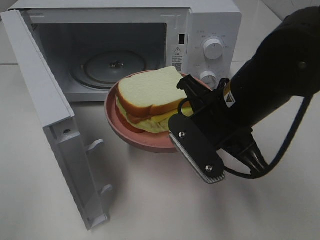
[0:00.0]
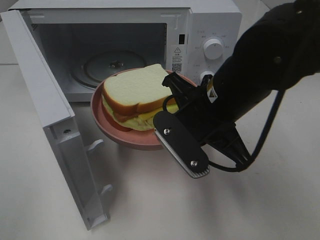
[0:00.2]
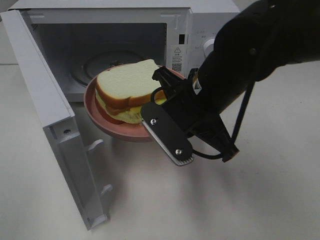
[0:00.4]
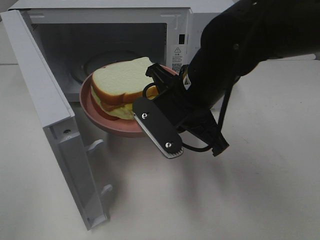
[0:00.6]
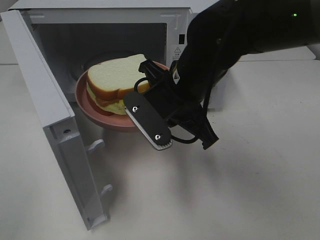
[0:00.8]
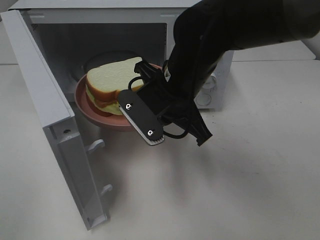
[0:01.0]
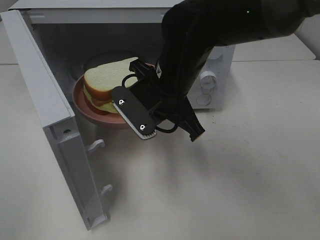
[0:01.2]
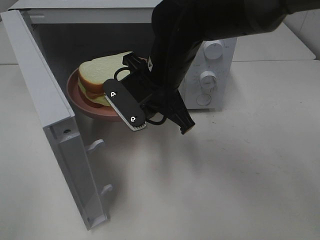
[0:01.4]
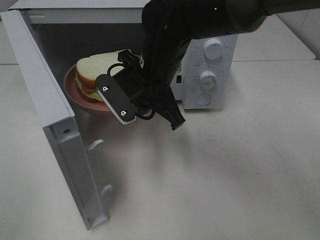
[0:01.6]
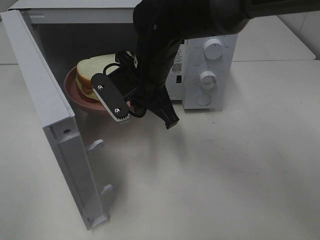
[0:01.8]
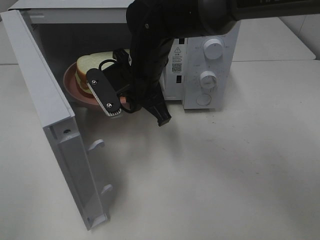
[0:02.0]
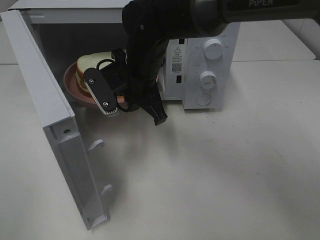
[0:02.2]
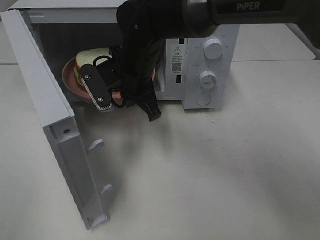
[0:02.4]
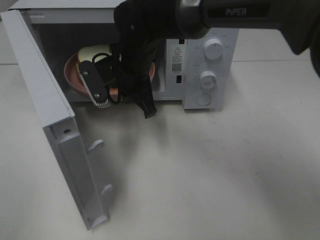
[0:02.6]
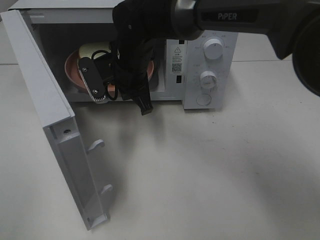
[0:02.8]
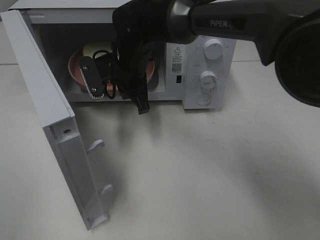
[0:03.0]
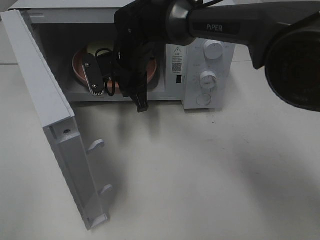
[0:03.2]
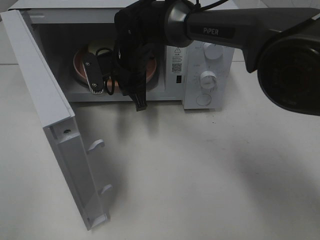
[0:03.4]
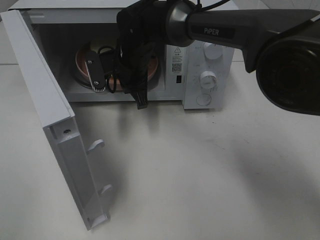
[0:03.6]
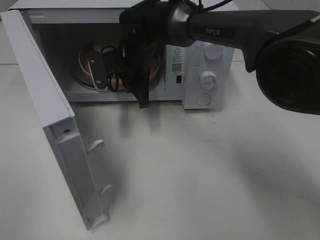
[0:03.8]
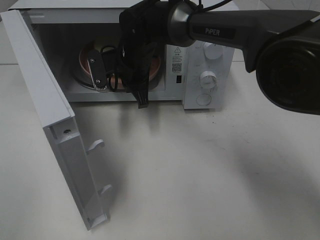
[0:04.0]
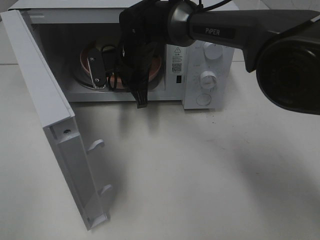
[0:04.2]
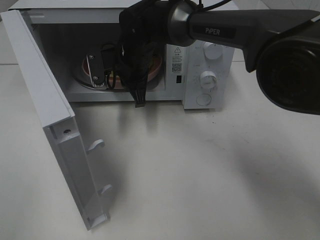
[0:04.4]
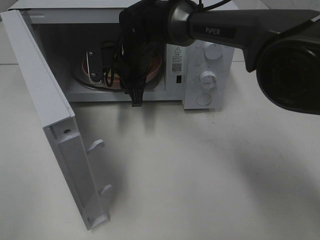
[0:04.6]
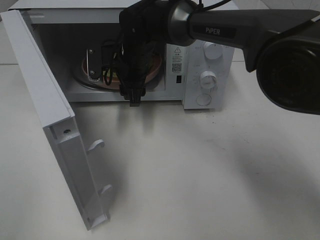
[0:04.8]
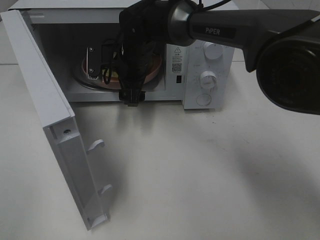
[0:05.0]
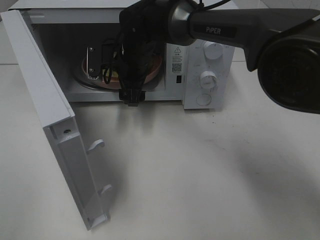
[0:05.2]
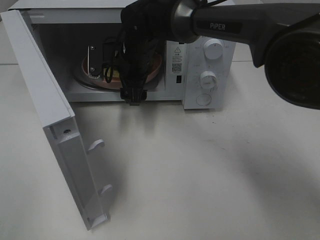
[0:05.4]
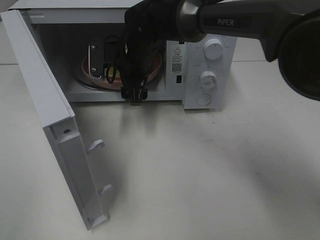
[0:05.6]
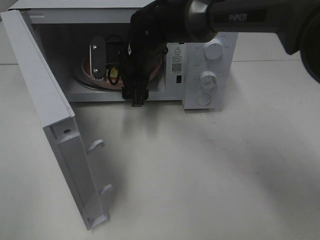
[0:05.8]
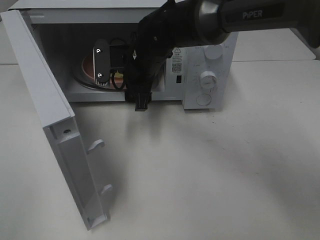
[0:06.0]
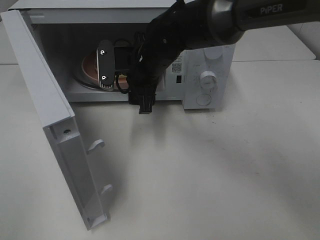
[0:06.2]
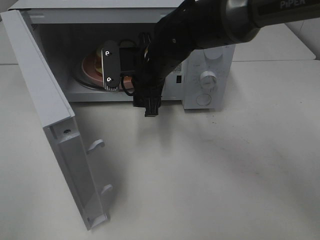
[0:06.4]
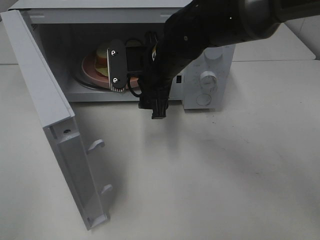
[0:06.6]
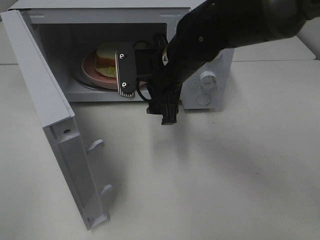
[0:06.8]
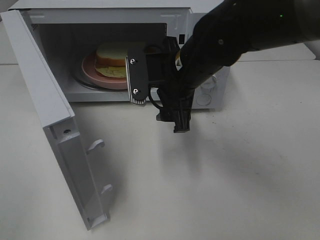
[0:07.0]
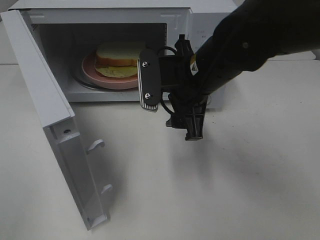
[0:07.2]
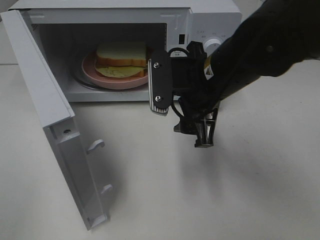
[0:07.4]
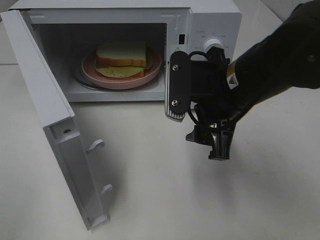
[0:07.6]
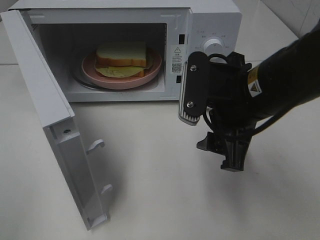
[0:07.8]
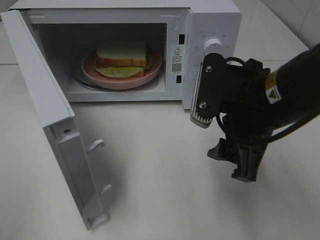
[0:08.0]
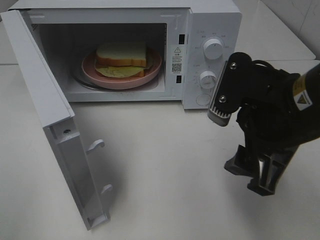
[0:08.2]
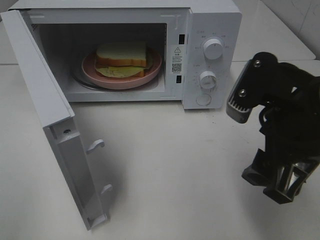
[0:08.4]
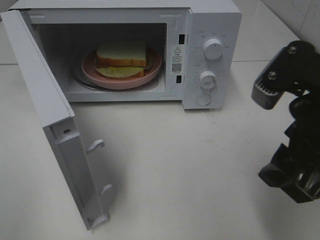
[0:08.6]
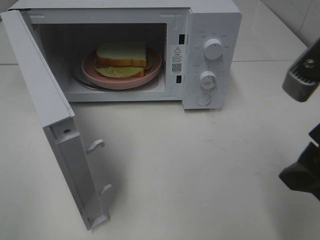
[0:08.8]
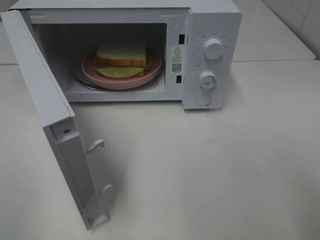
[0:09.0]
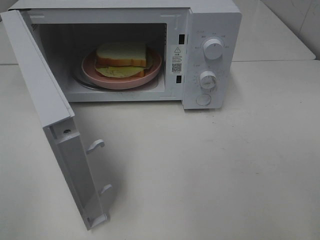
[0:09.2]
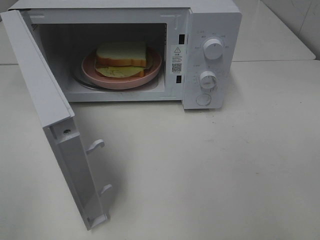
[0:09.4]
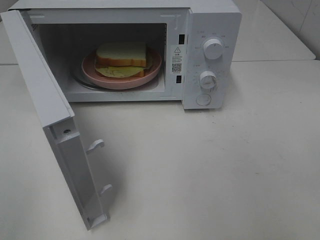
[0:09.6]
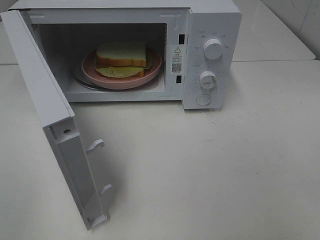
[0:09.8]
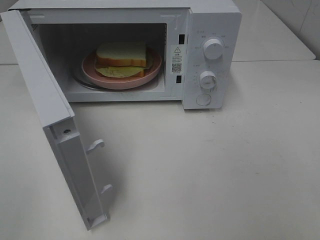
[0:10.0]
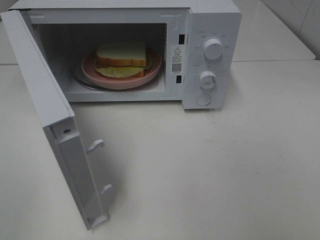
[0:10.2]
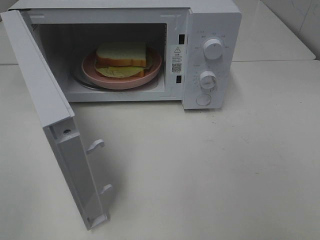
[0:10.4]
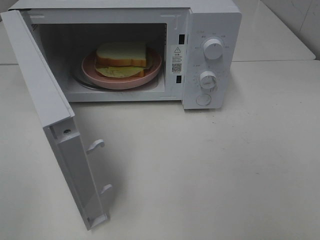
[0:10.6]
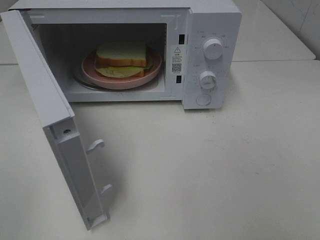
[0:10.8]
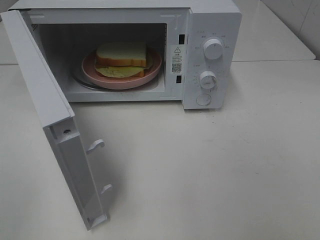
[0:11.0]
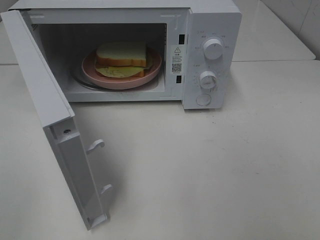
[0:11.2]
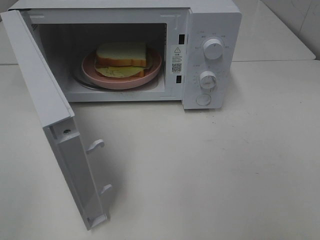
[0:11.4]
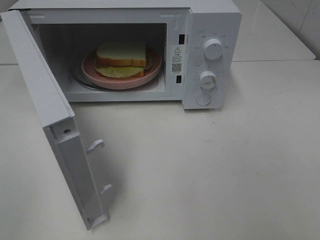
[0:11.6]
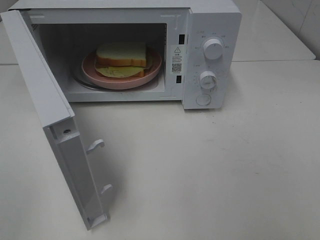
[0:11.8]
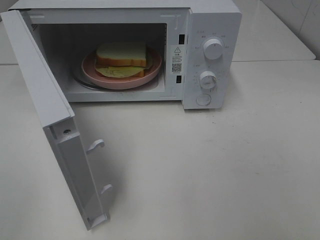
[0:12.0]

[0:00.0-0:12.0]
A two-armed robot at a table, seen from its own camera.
Task of the whole recording: Heat Sandwich.
Step, 0:00.0 to 0:05.8: Right hand: place the plate in the microwave.
0:00.0 to 0:01.6: The right gripper shifts about 15 cm to the left and forward.
0:01.6 to 0:03.0: The right gripper goes about 10 cm forward.
0:03.0 to 0:04.4: The grippers stay close to where they were, moving slightly.
0:04.4 to 0:06.0: The right gripper opens its fingers.
0:06.0 to 0:07.6: The right gripper shifts some 20 cm backward and to the right.
0:07.6 to 0:09.0: The right gripper is displaced backward, to the right and upward by some 20 cm.

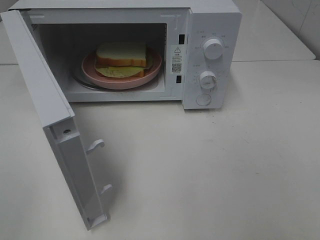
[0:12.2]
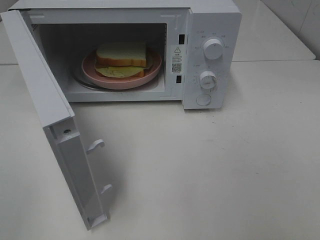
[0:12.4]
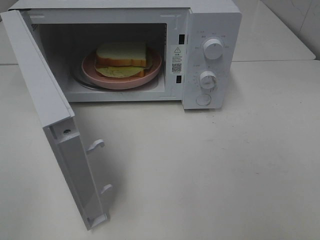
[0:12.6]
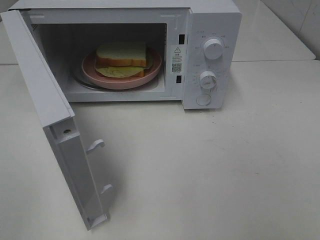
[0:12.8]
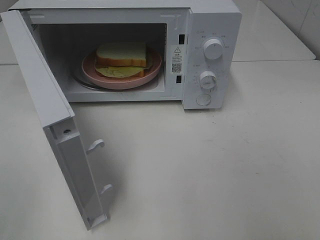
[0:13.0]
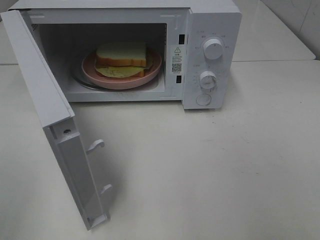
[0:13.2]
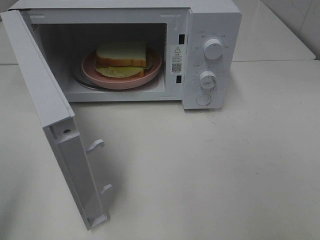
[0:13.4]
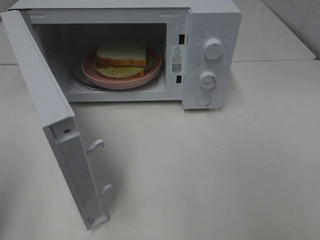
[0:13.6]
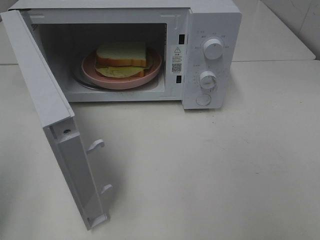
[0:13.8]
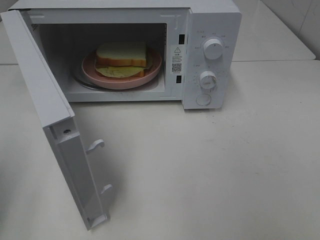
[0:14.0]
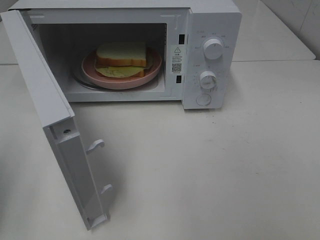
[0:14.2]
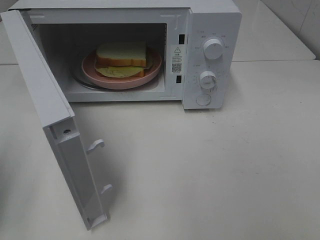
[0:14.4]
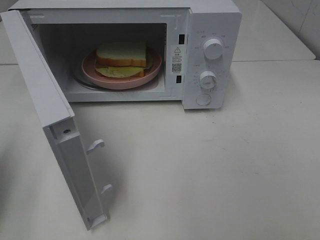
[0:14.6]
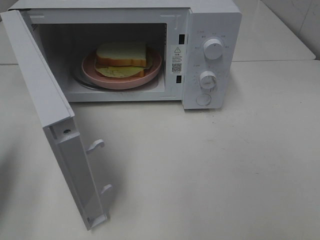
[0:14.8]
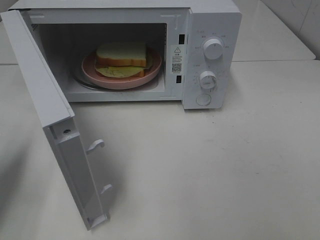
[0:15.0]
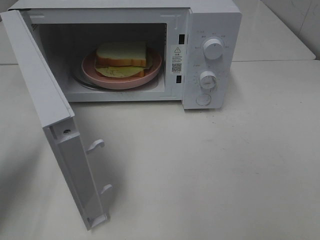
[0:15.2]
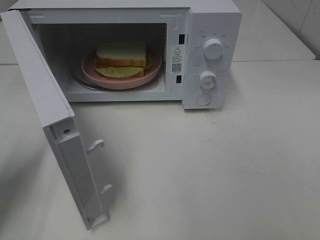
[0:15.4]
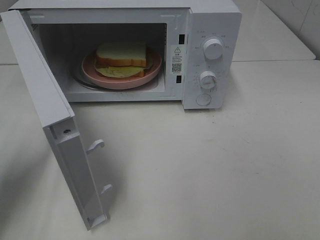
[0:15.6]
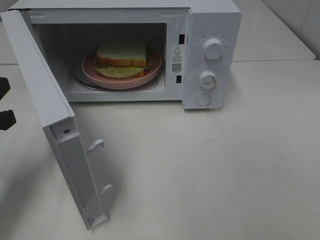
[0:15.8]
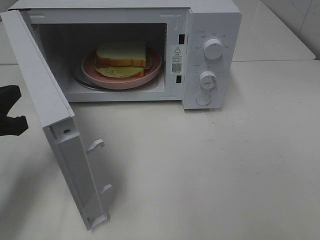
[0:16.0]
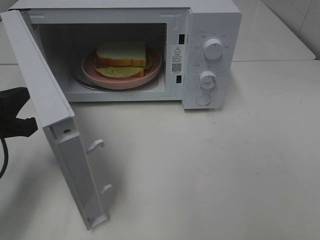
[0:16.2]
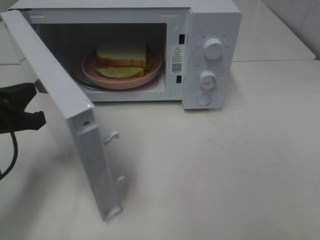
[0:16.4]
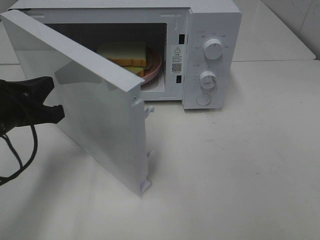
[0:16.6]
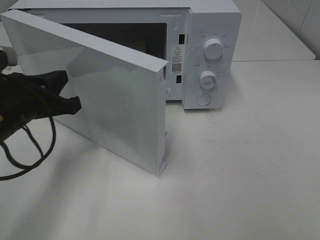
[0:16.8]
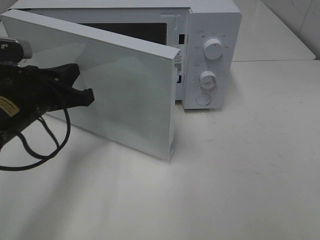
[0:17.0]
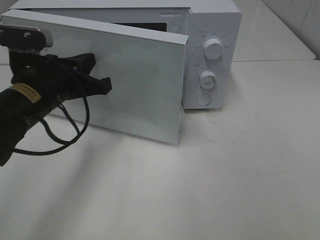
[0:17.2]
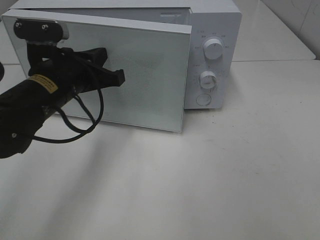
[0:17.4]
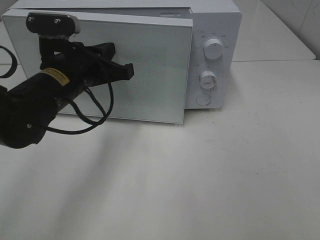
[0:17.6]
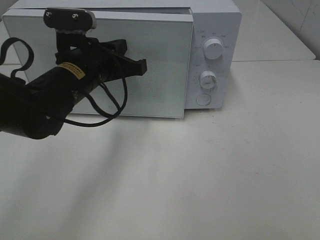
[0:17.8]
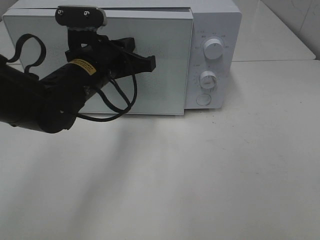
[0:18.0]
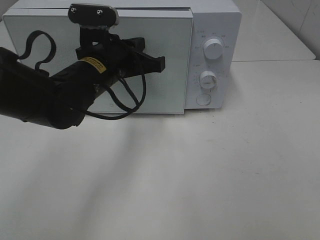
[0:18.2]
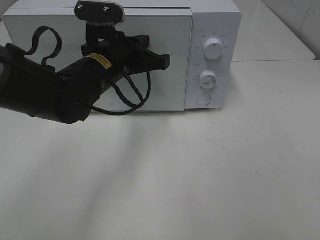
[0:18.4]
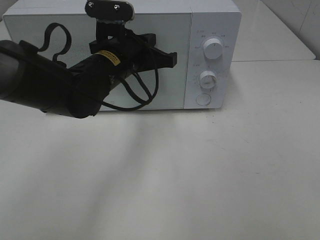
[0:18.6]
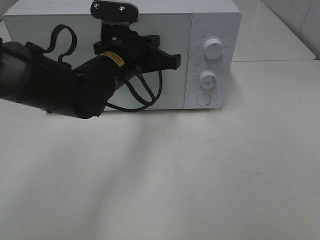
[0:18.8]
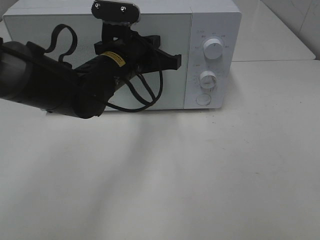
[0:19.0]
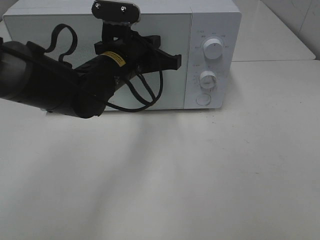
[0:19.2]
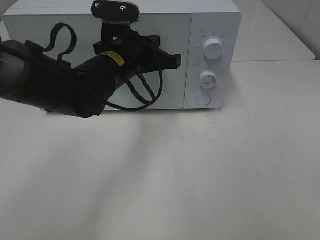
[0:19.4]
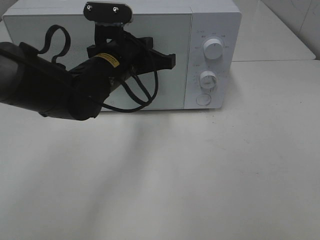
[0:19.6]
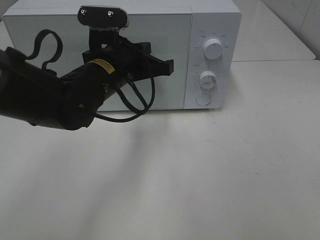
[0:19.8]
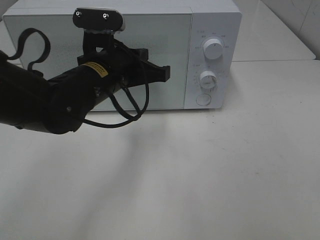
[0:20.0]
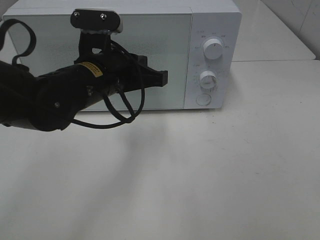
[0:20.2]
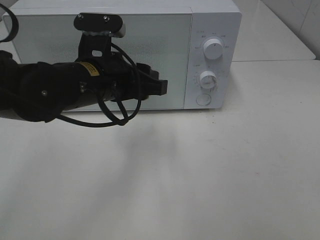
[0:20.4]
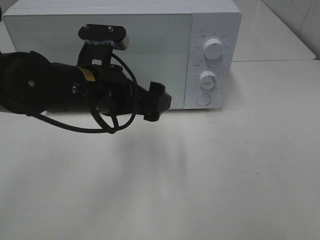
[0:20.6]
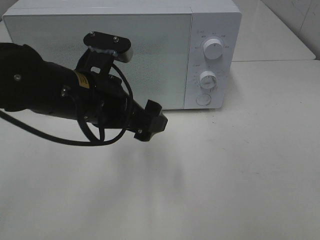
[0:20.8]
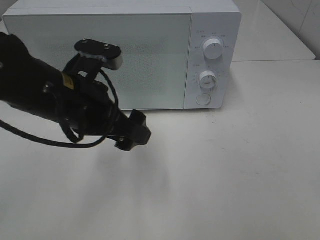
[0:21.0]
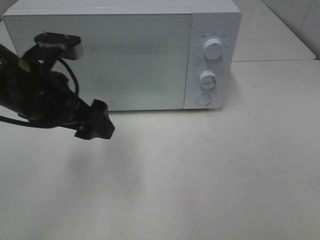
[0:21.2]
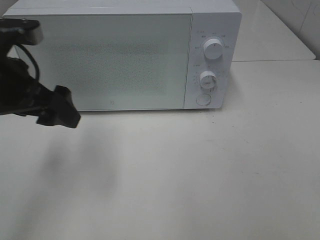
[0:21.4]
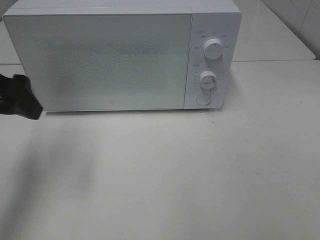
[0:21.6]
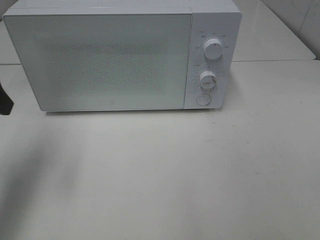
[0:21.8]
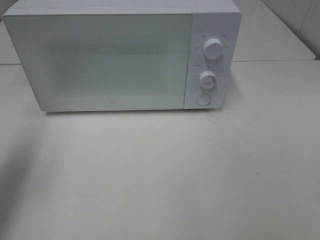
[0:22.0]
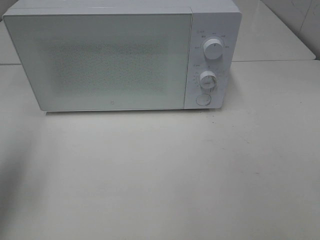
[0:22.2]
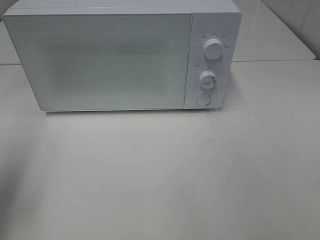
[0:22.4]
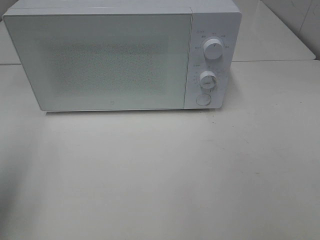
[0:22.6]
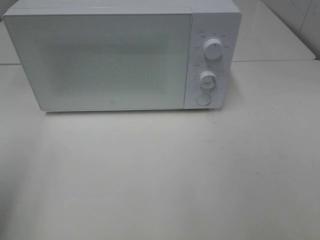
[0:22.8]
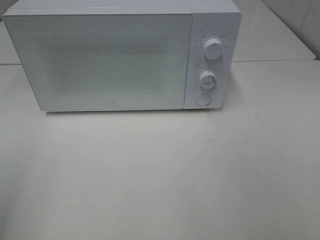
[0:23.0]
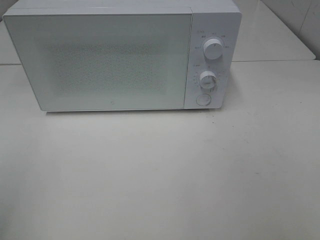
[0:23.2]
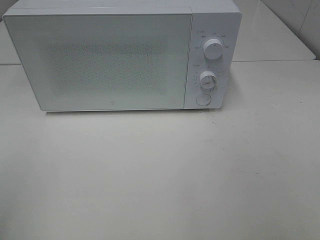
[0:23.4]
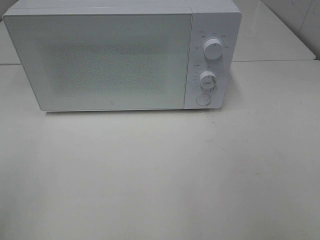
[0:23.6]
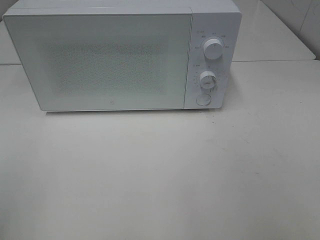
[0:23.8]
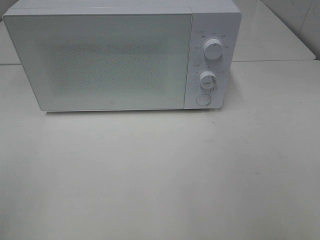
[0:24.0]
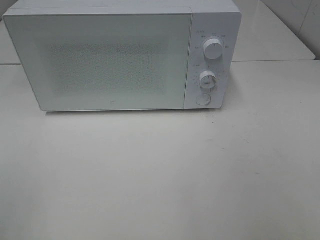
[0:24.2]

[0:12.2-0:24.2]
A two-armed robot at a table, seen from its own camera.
Task of the whole recording: Heat Sandwich.
Step, 0:12.2 to 0:20.2: Left hand: close the microwave door.
0:13.8 to 0:15.2: The left gripper moves forward and downward, approximately 15 cm.
0:15.2 to 0:16.6: The left gripper is displaced to the right by about 10 cm.
0:16.6 to 0:18.2: The left gripper goes some 15 cm to the right and forward.
0:18.2 to 0:19.8: The grippers move only a little.
0:19.8 to 0:21.2: The left gripper moves to the left and backward, roughly 10 cm, and opens its fingers.
0:21.2 to 0:22.6: The left gripper travels to the left, backward and upward by approximately 20 cm.
0:22.6 to 0:24.2: The left gripper heads backward, covering approximately 15 cm.
